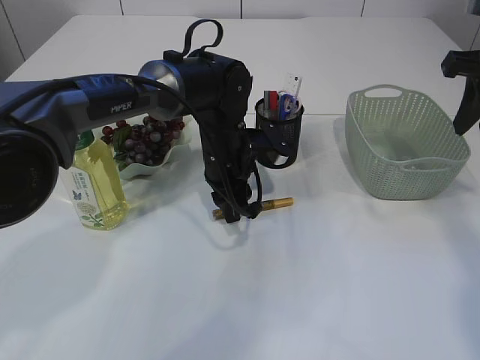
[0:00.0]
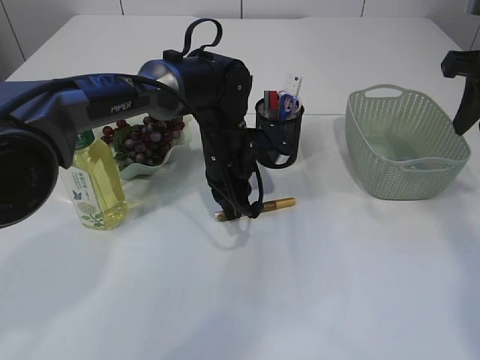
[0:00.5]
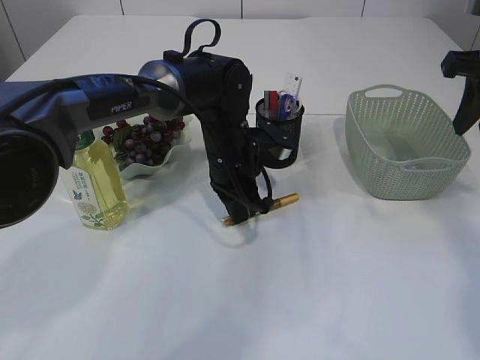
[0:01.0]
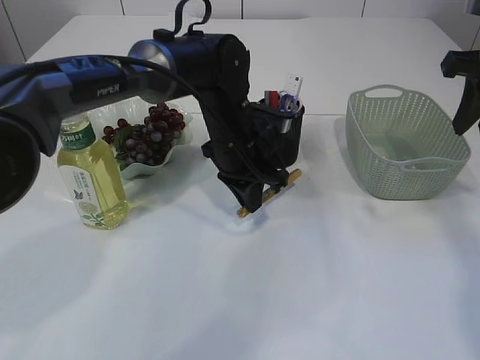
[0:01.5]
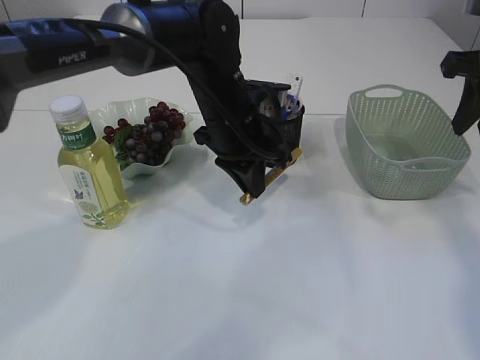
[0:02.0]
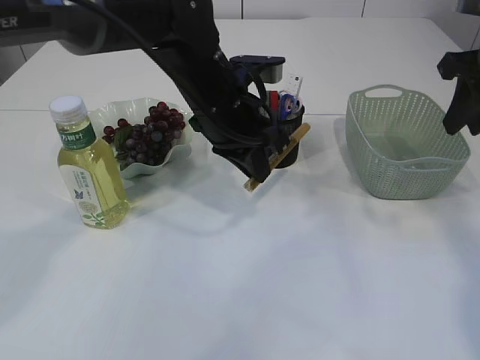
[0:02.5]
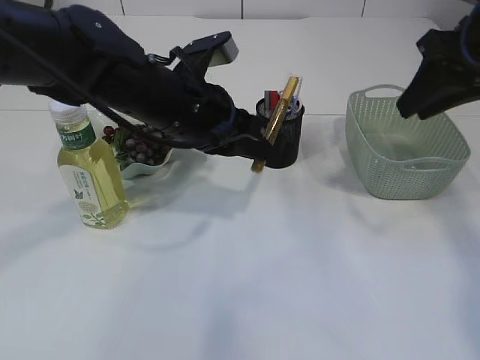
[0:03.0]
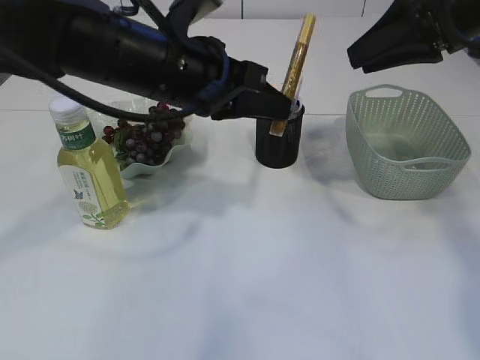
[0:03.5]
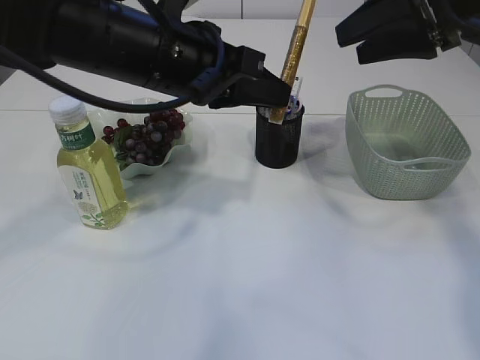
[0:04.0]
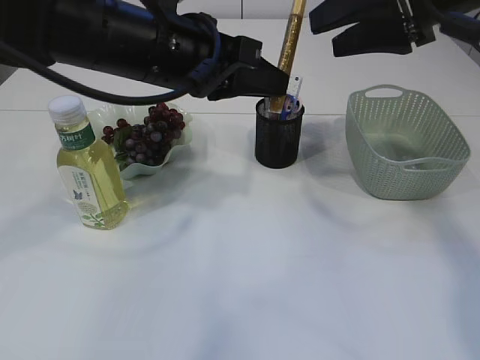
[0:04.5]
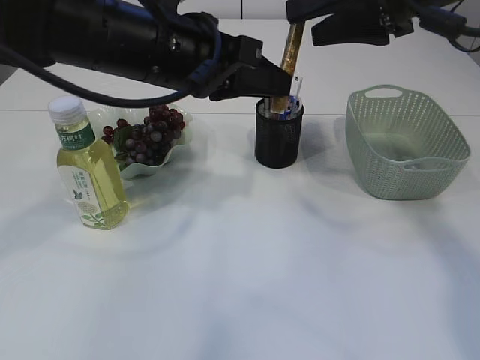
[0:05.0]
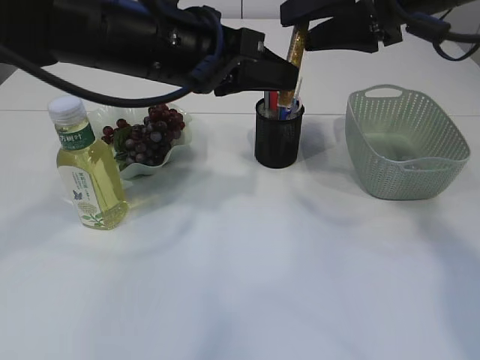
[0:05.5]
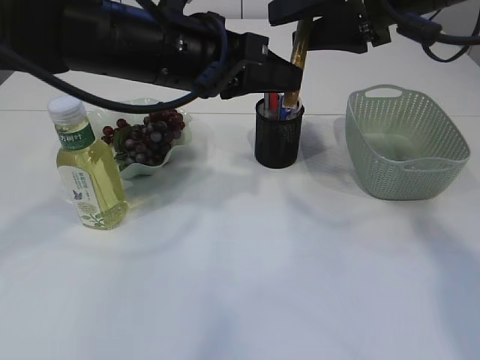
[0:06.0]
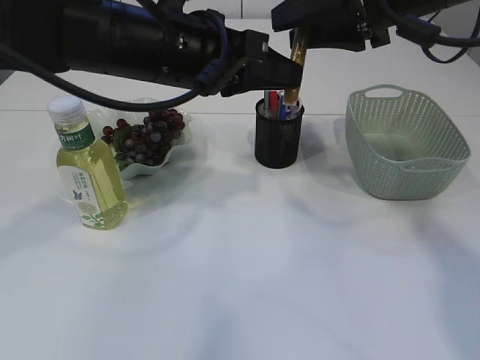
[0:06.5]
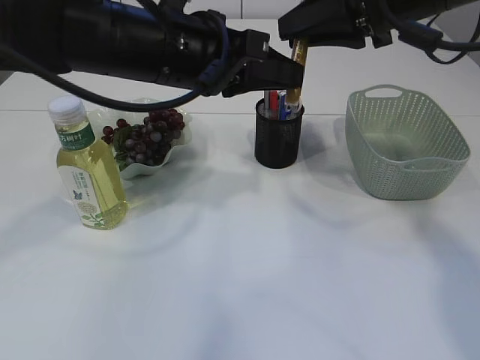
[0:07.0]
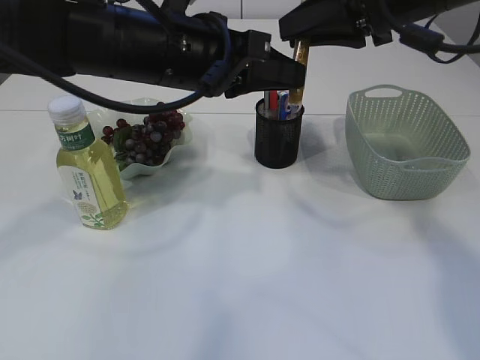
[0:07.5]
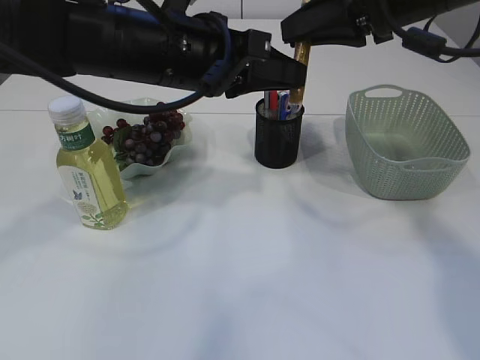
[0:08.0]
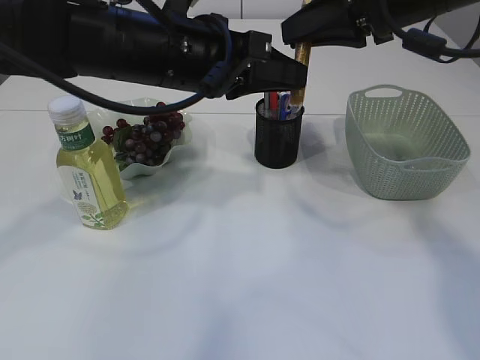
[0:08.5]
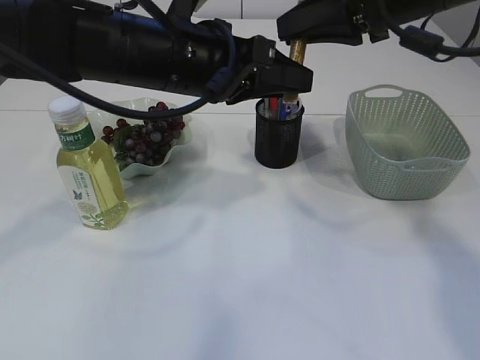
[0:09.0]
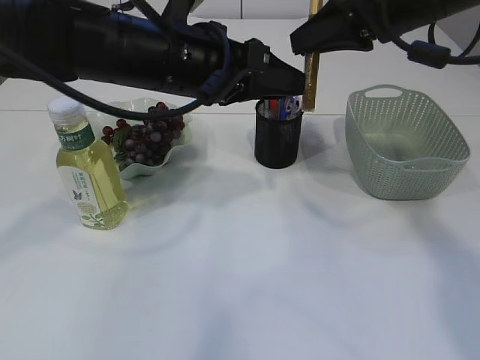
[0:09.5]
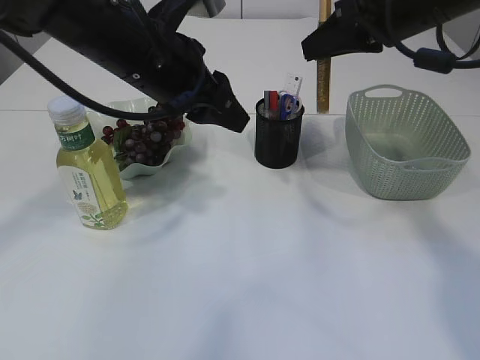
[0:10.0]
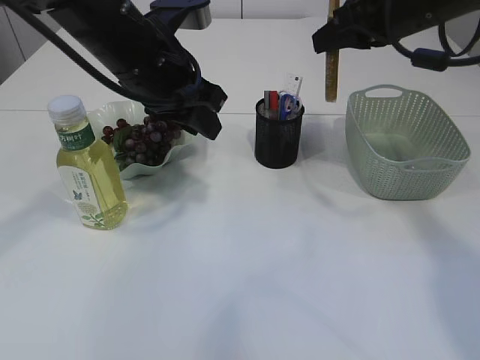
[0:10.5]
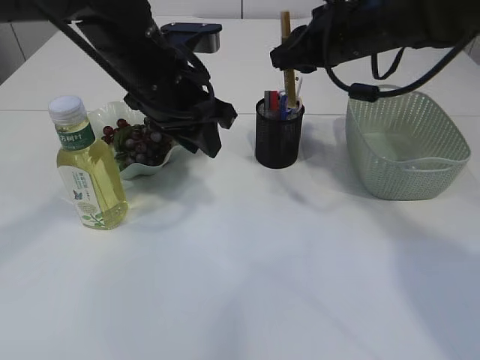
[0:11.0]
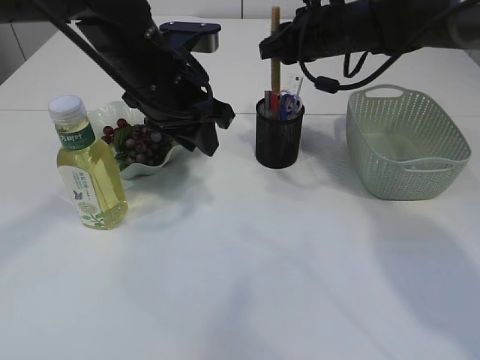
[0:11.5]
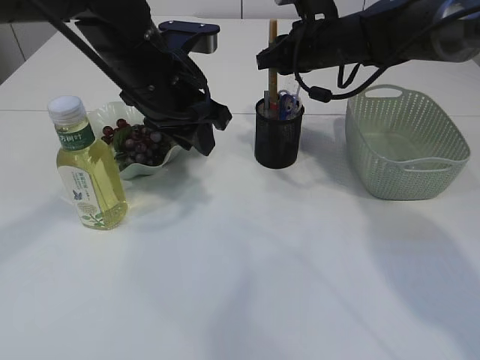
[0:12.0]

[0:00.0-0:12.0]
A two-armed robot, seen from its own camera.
Step, 0:00.0 to 0:02.0: pick up the yellow glue.
Step, 0:02.5 to 0:10.0: Hand over the yellow glue.
0:00.0 to 0:02.0: The left gripper is displaced upward by approximately 5 cm.
0:02.0 to 0:04.0: The left gripper shifts about 15 cm upward, backward and to the left. Meanwhile the right gripper travels to the left by approximately 5 cm, and opens its fingers.
0:04.0 to 0:06.0: The right gripper goes about 5 cm to the left.
0:06.0 to 0:08.0: The right gripper closes.
0:08.0 to 0:10.0: The left gripper opens.
0:10.0 to 0:12.0: The right gripper goes roughly 15 cm forward and downward.

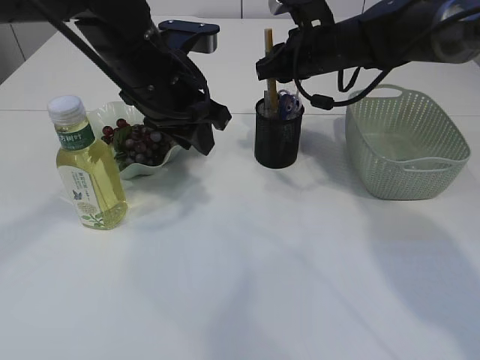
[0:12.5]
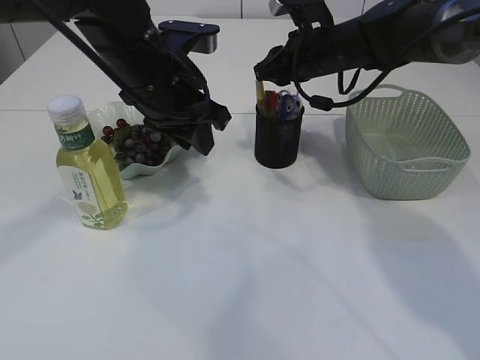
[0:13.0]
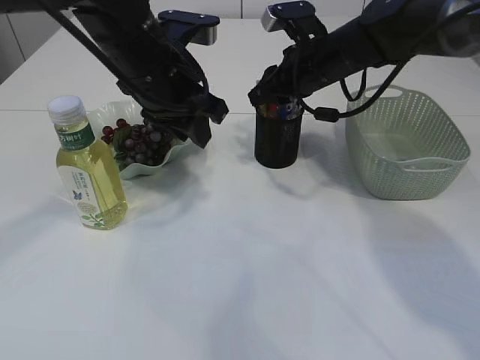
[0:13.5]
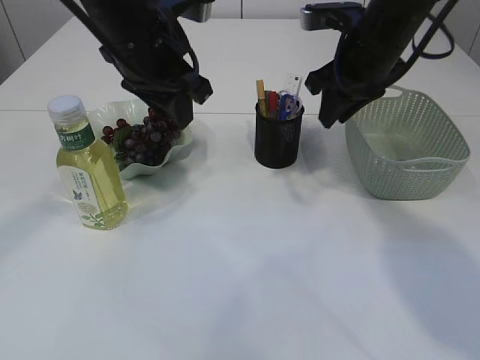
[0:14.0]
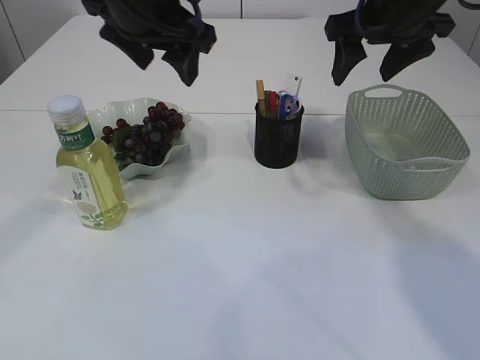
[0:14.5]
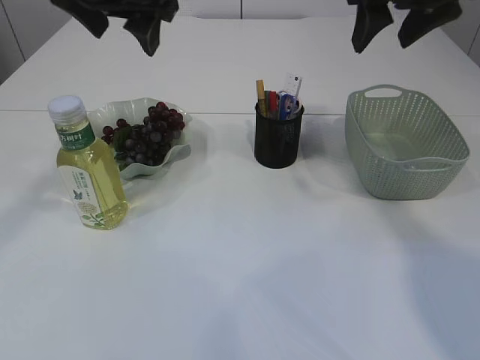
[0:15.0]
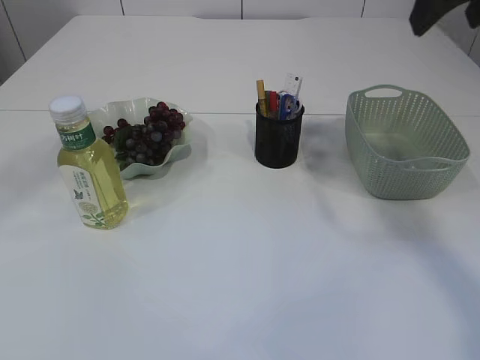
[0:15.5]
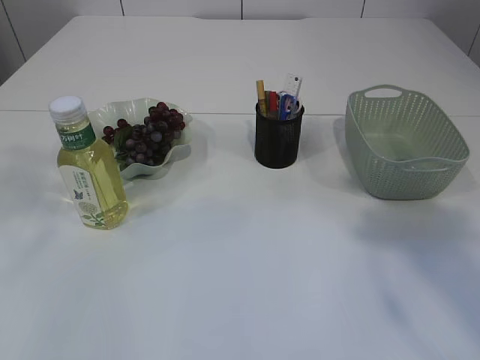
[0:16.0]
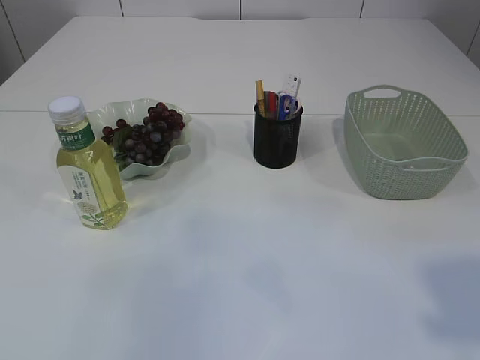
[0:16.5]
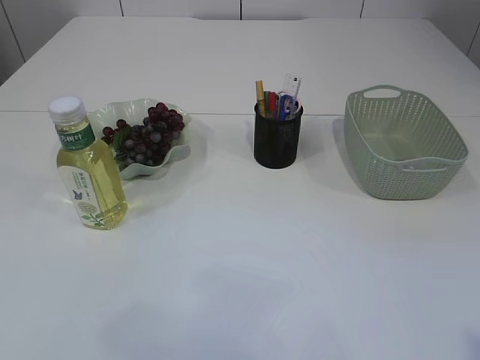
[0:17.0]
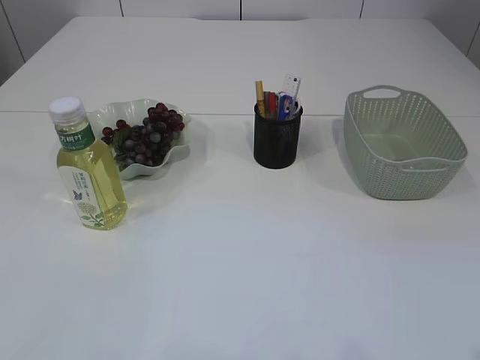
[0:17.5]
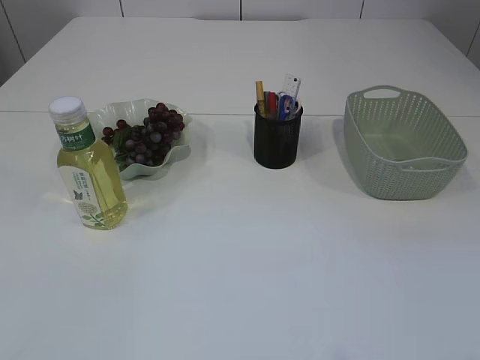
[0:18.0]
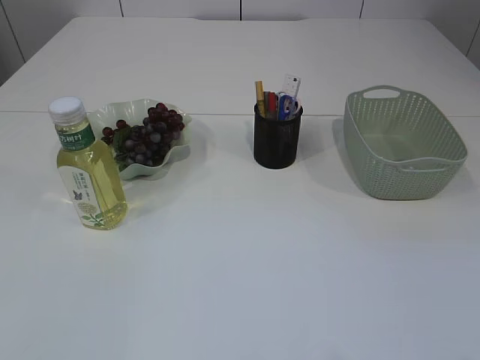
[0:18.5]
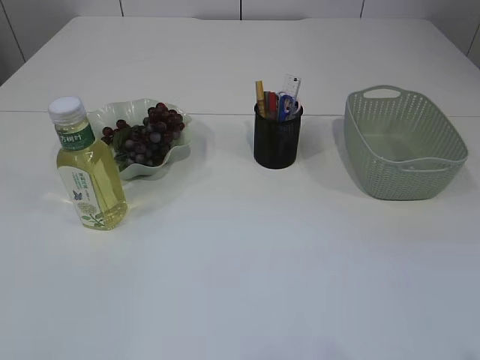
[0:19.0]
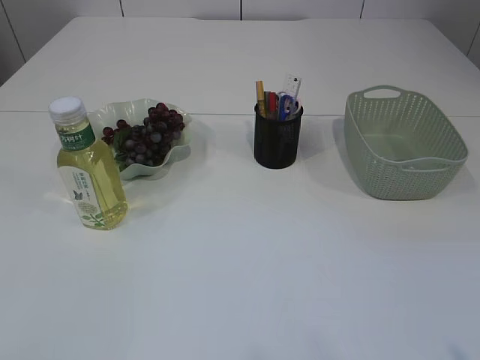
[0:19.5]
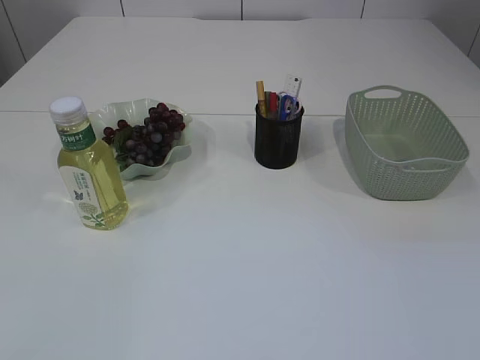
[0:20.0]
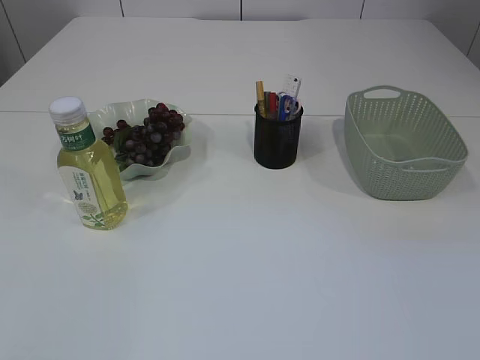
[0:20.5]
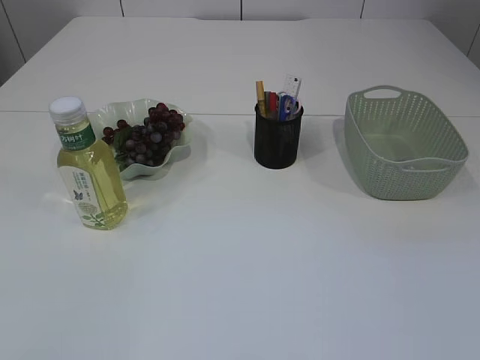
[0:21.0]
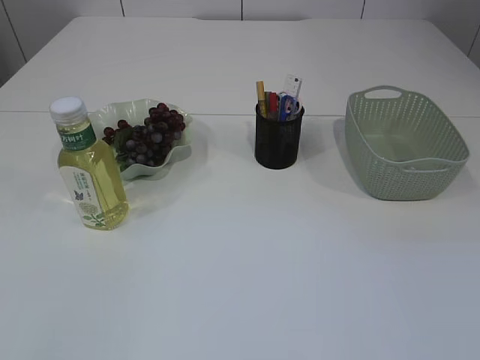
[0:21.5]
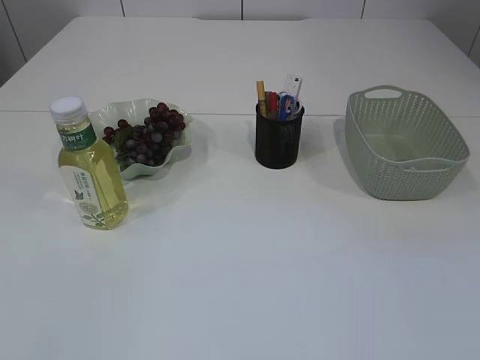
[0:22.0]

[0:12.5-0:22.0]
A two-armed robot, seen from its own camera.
0:12.5 to 0:14.5: The left gripper is displaced upward by some 10 cm, and opens up. Meanwhile the right gripper is displaced upward and backward by about 15 cm, and opens up.
0:14.5 to 0:16.5: The left gripper moves backward and to the left, roughly 30 cm. The right gripper shifts about 35 cm backward.

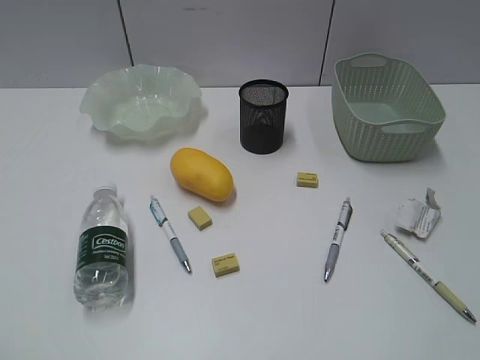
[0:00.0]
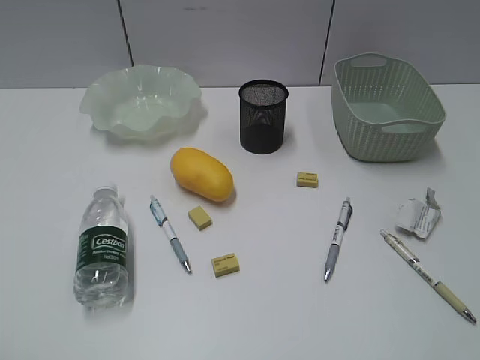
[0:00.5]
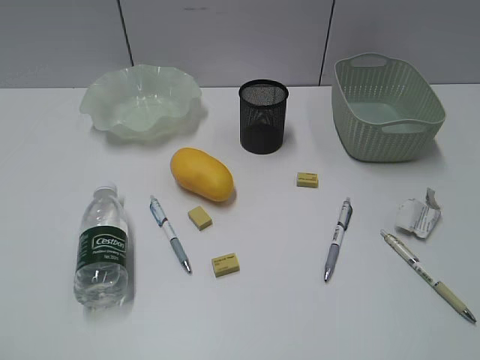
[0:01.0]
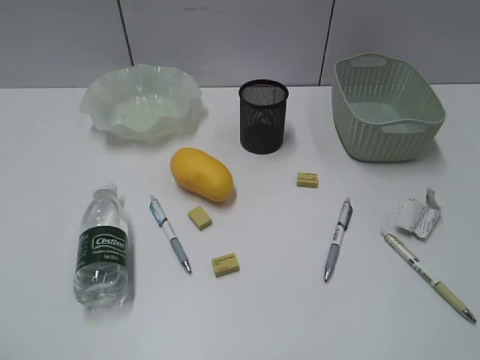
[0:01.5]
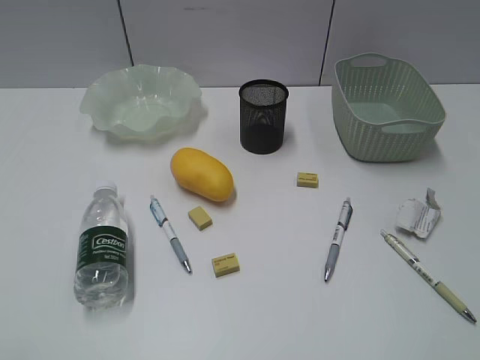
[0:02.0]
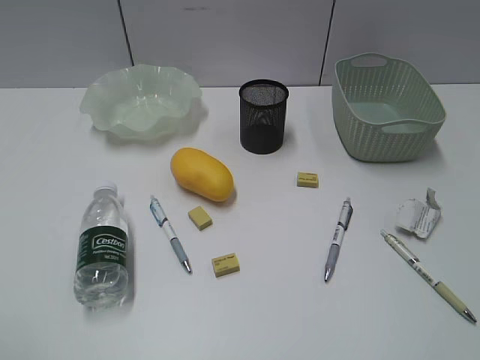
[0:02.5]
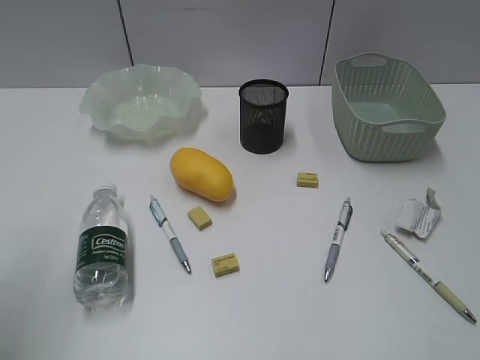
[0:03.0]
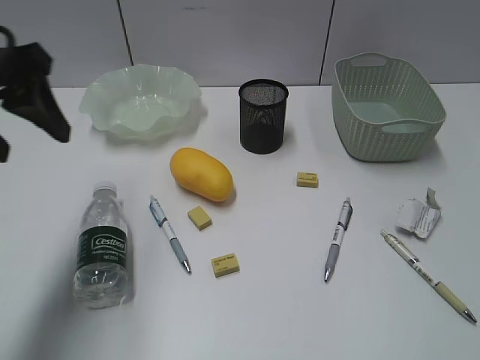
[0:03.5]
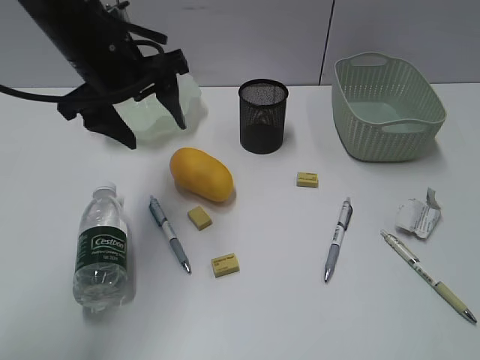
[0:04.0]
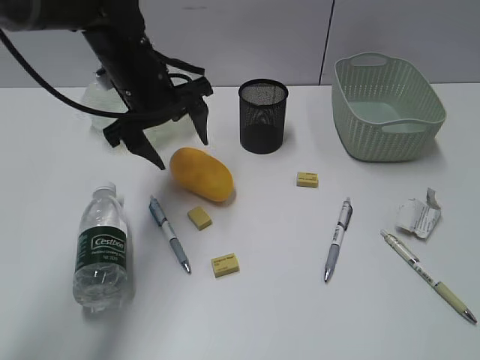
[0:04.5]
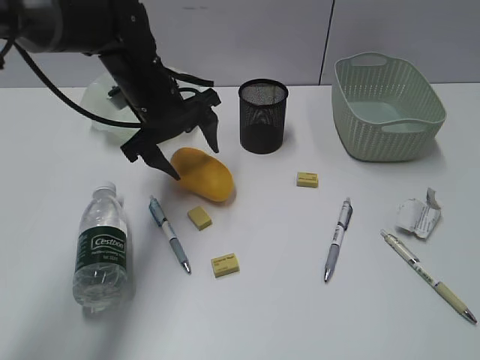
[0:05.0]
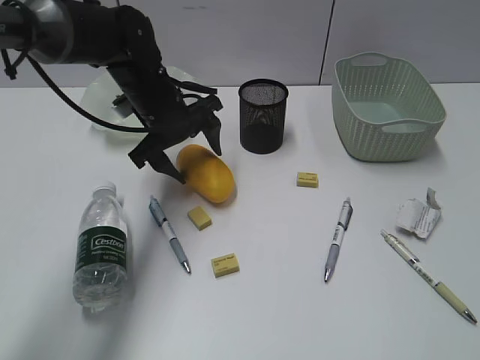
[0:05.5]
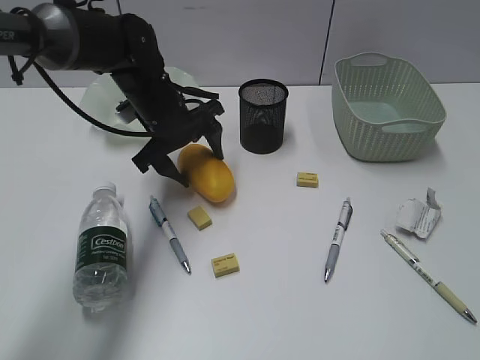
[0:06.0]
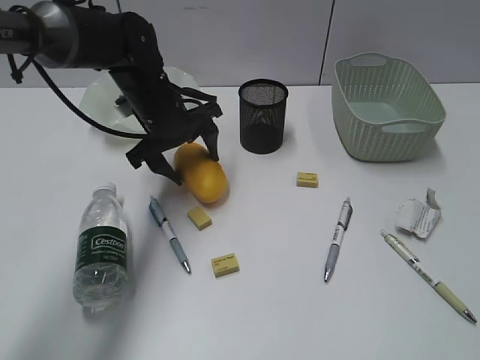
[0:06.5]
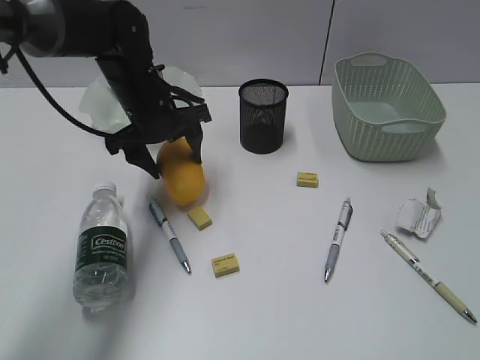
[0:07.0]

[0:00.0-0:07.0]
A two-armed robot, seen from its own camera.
Step, 0:03.5 to 0:06.0: Grasp the mango with left gripper.
0:02.0 to 0:03.5: The left gripper goes approximately 25 cm forward.
0:03.5 to 0:05.0: The left gripper goes approximately 25 cm forward, downward and to the right.
0:05.0 to 0:07.0: The grippers move only a little.
